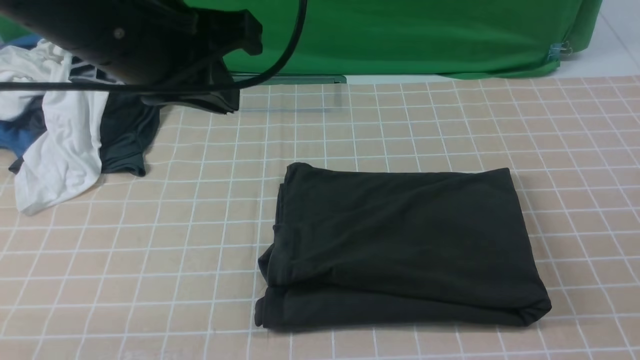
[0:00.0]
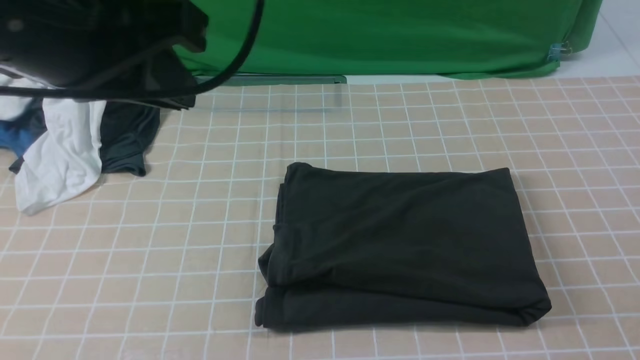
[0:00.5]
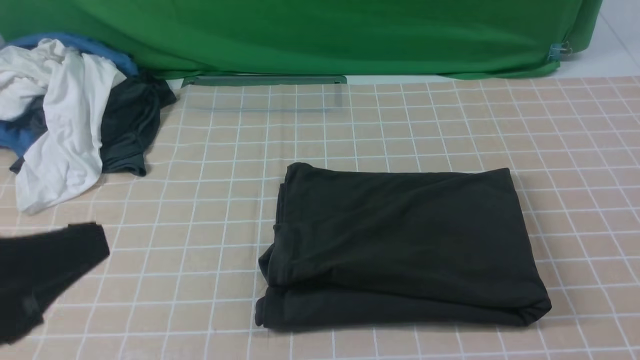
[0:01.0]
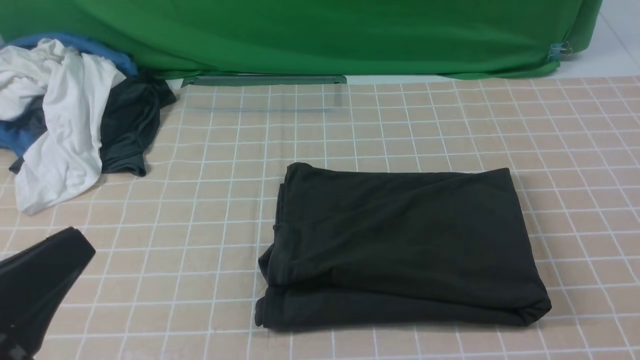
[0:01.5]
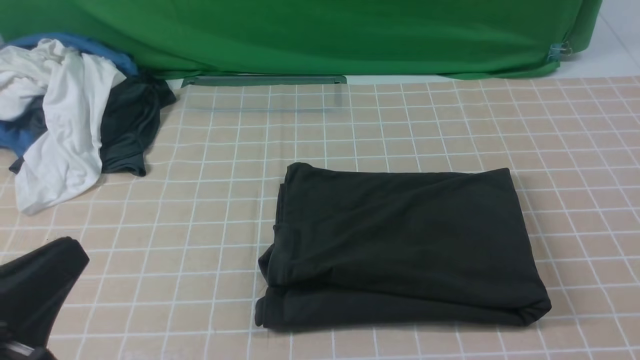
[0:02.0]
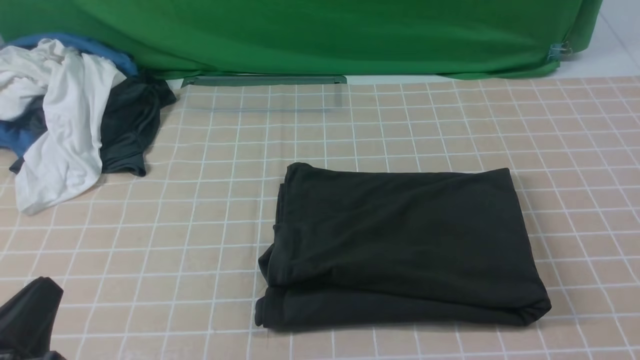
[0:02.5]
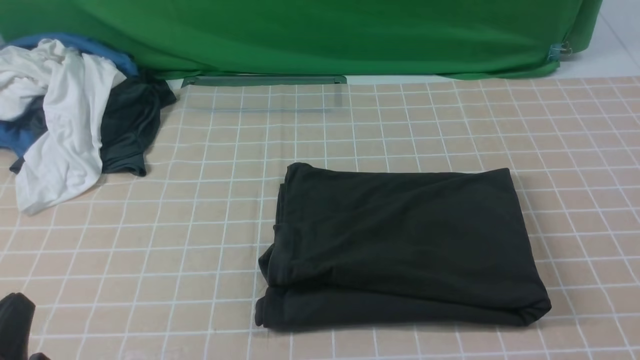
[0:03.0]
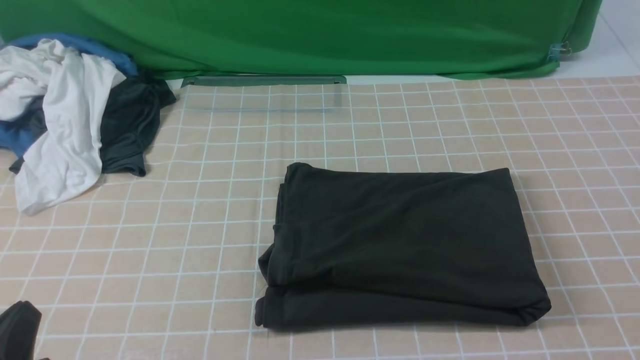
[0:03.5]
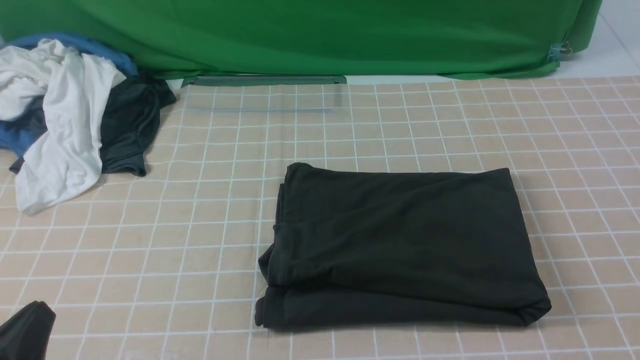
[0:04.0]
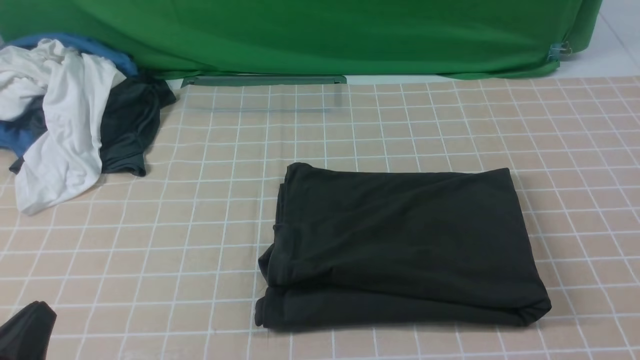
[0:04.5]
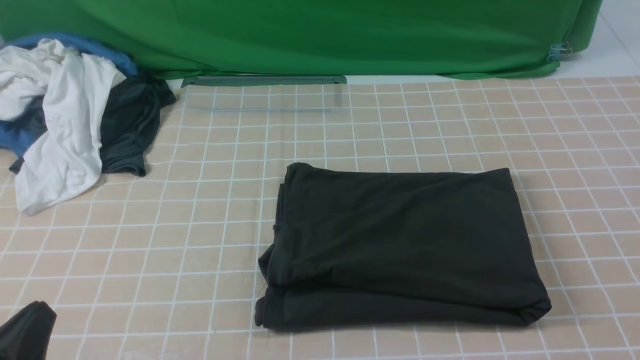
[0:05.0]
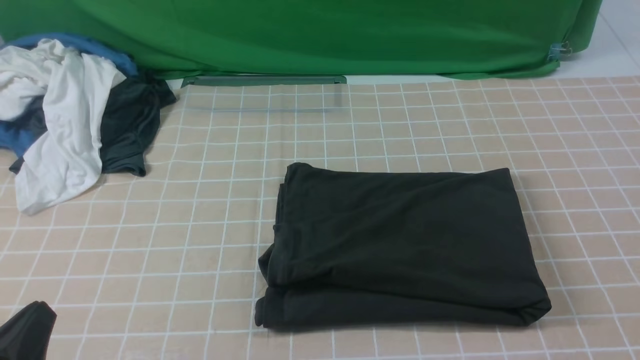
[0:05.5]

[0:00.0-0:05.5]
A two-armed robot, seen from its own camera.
0:00.0 to 0:02.0: The left gripper goes roughly 25 cm backward, downward and to the left.
0:02.0 to 0:03.5: The left gripper moves downward, about 10 cm.
0:03.5 to 0:05.5: Neither gripper changes place.
